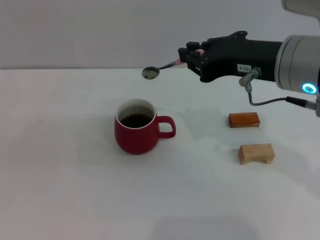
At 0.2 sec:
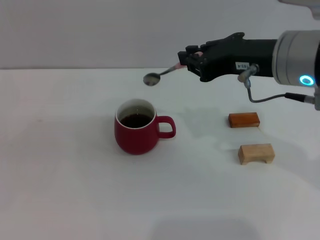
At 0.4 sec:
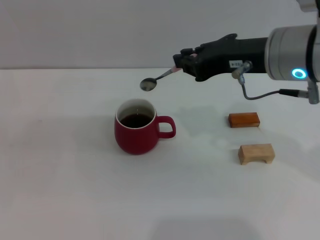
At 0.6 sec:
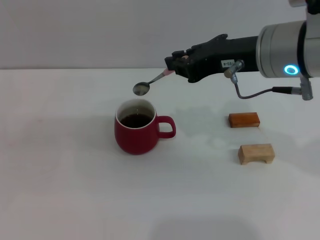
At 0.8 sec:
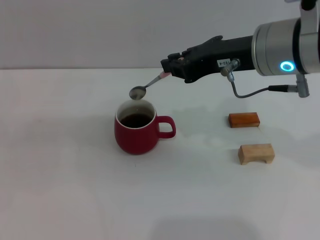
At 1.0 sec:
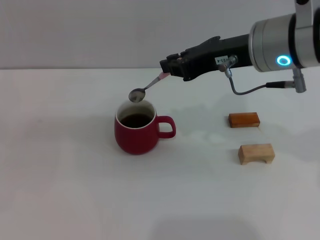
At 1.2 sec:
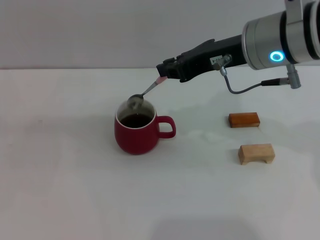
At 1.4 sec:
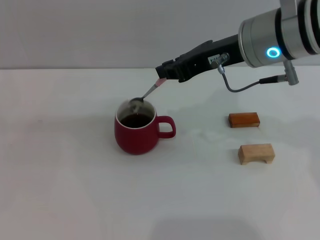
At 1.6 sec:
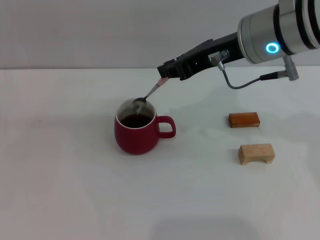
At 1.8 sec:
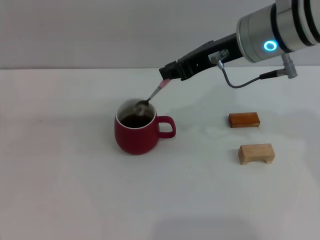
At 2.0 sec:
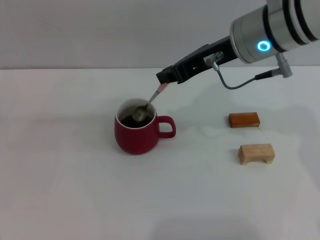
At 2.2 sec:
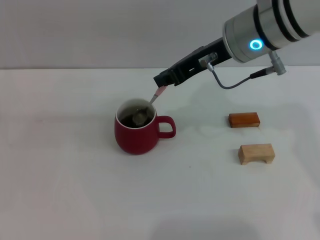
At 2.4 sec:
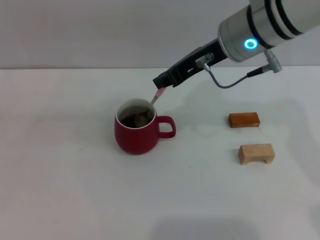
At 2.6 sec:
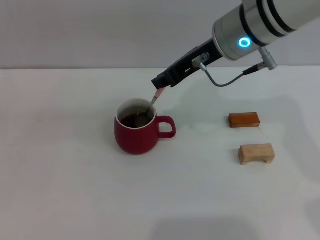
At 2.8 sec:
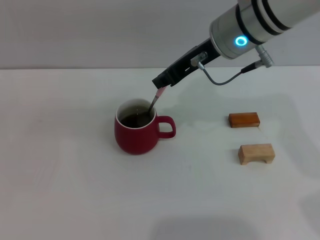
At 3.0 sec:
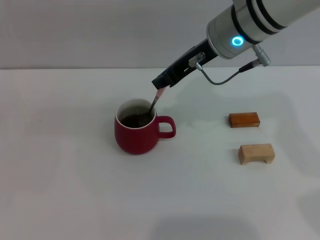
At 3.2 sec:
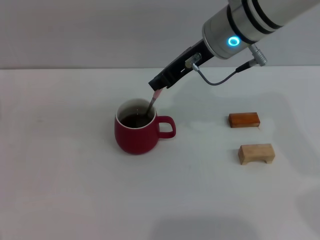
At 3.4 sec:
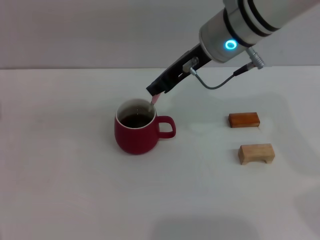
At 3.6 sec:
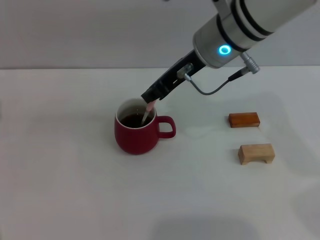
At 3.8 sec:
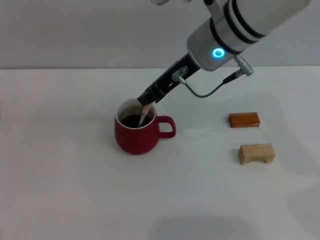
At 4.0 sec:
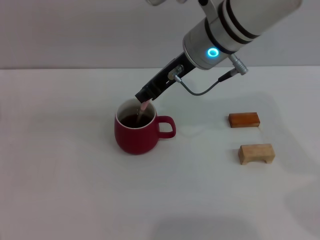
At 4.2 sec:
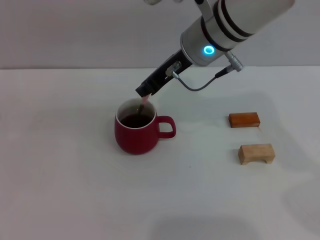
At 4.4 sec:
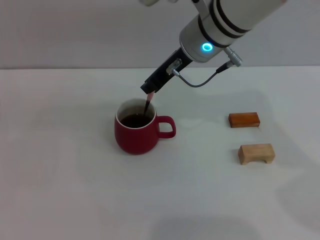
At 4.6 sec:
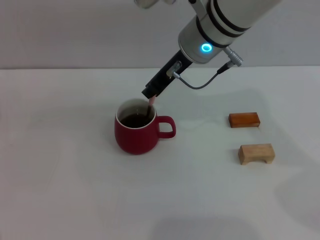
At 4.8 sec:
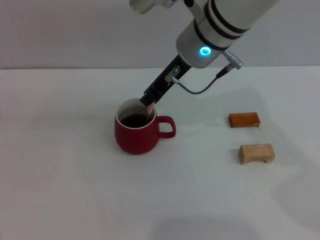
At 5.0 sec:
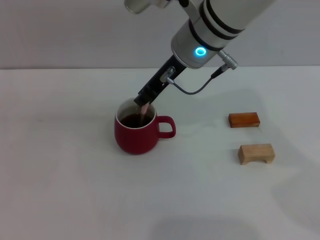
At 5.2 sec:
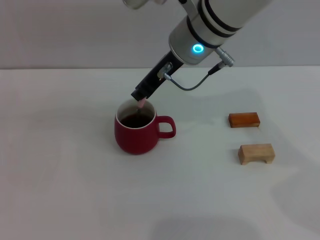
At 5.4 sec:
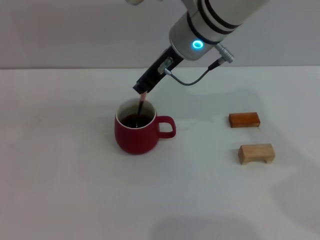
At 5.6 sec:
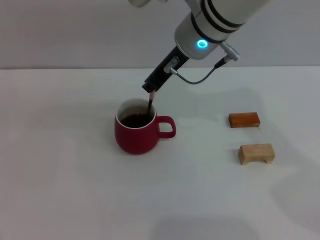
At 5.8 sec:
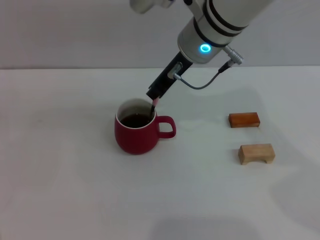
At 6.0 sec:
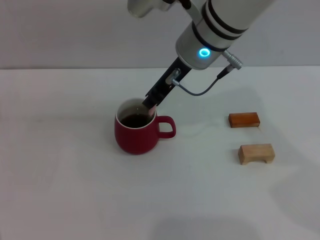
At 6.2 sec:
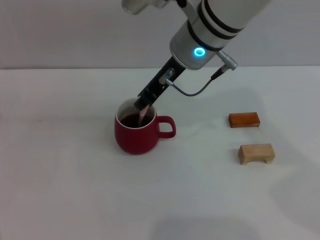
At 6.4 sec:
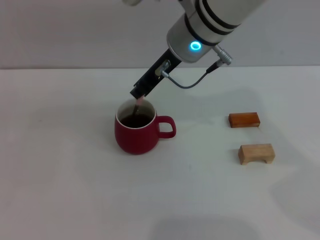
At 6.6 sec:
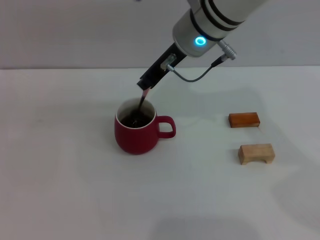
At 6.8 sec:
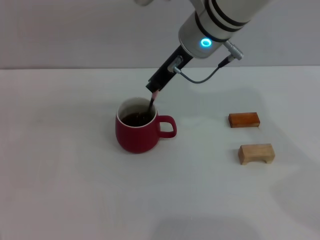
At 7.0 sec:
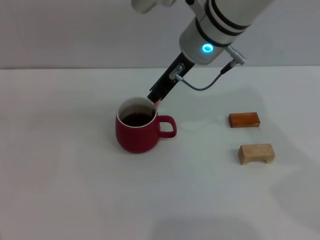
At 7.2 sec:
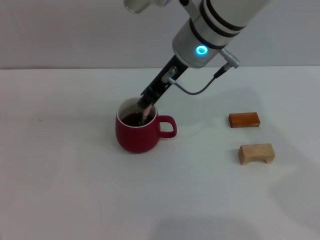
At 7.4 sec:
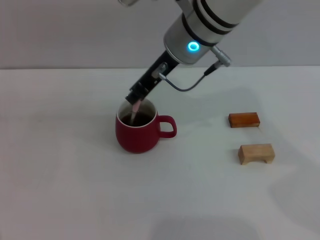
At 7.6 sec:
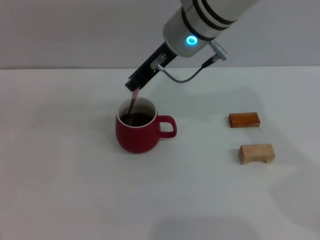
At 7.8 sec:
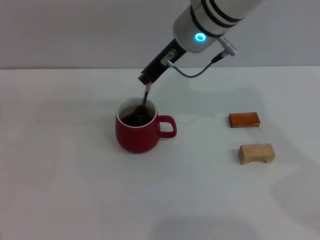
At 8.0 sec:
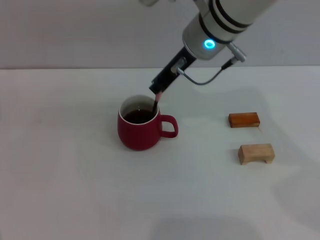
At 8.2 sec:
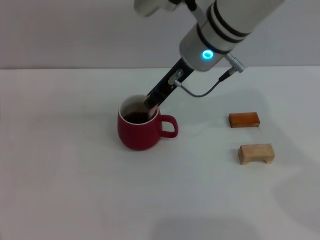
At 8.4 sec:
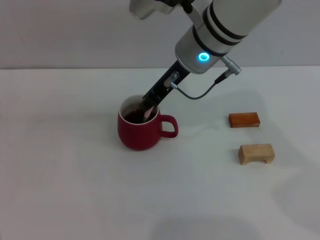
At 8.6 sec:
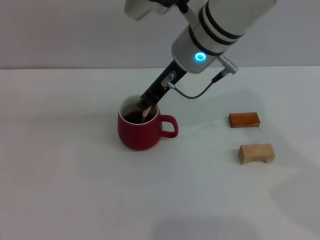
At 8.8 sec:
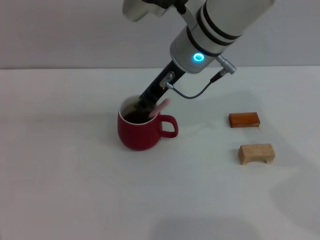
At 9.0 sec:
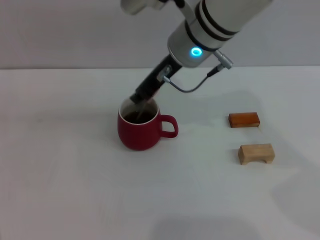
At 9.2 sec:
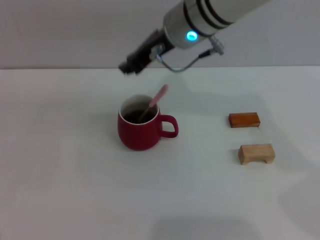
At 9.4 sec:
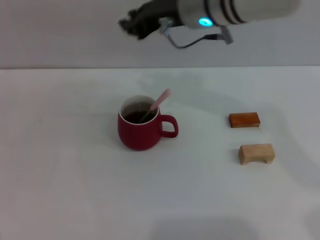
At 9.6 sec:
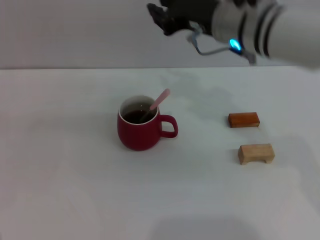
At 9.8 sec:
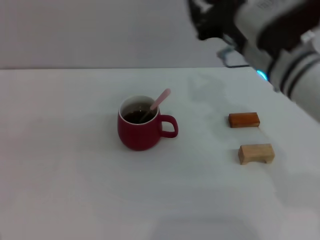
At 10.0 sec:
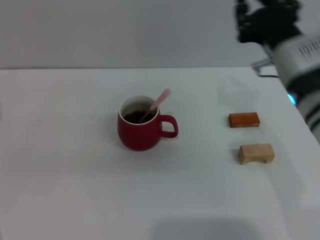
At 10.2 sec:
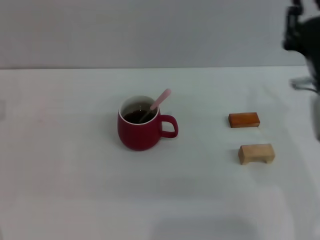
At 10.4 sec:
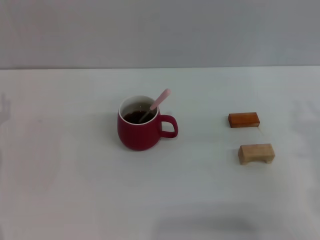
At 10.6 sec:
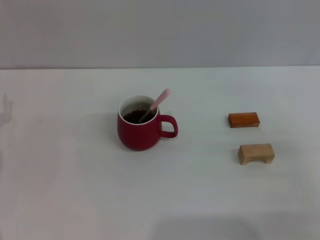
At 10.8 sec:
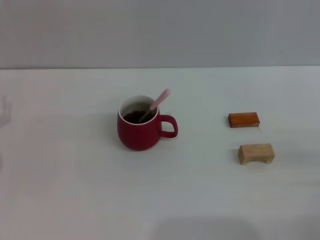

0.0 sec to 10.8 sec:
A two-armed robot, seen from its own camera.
Task of the whole recording: Move the red cup to the center, lift the pink spoon, stir it three times in the cup, and put the spoon into the cup.
Step, 0.0 sec to 9.4 sec: Stir the coffee in the cup with the right gripper.
0.0 sec to 1.6 sec: The right gripper moves forward, approximately 5 cm.
1.6 sec to 3.0 sec: The right gripper changes place by some 5 cm.
3.0 sec to 9.2 sec: The grippers make only small movements.
9.2 sec to 10.8 sec: The right gripper moves to the right, backward and downward, approximately 40 cm.
